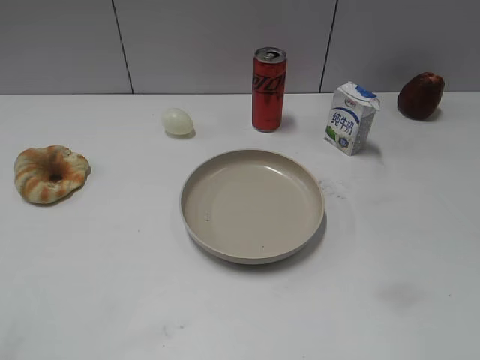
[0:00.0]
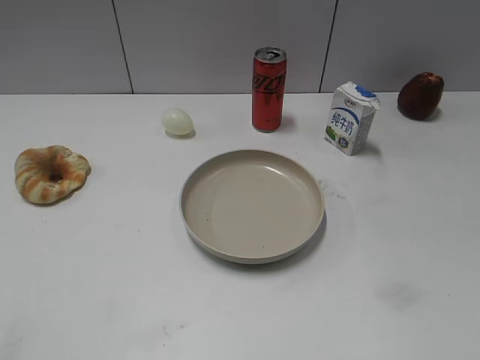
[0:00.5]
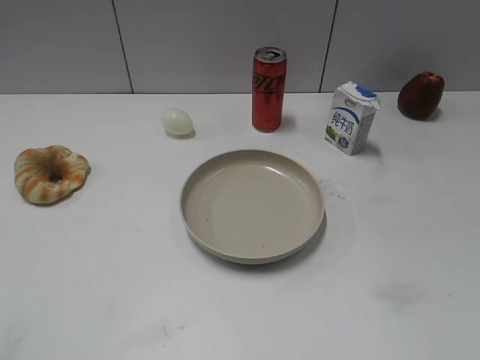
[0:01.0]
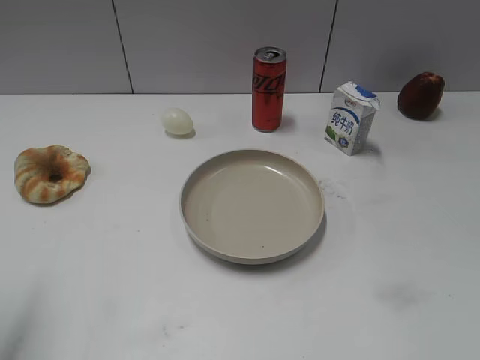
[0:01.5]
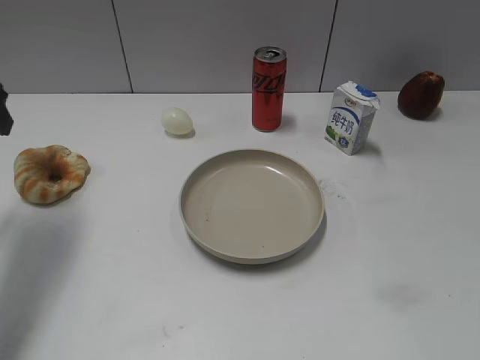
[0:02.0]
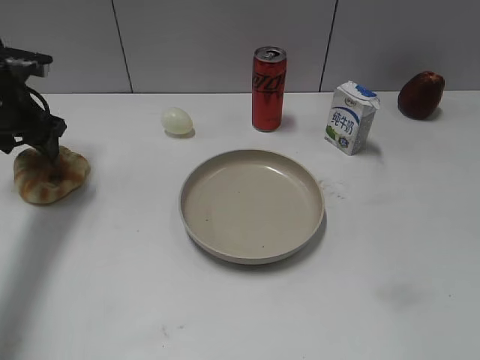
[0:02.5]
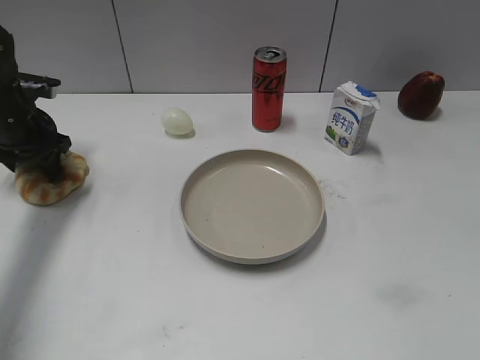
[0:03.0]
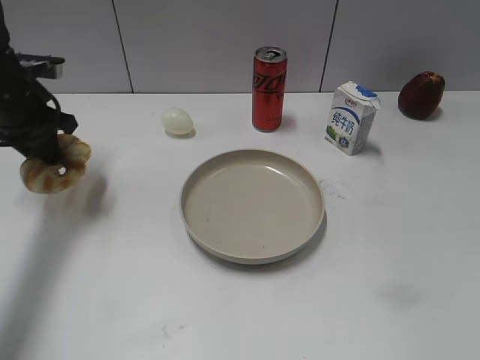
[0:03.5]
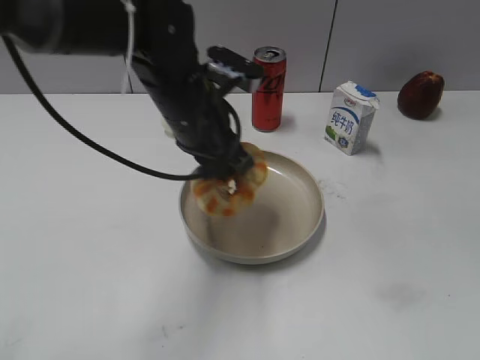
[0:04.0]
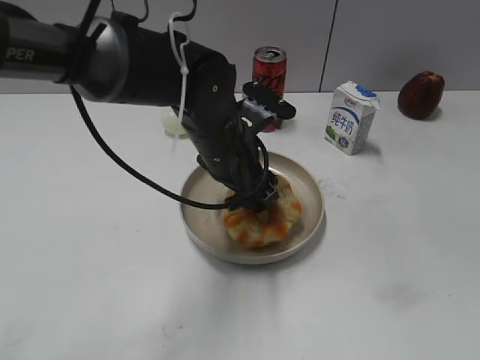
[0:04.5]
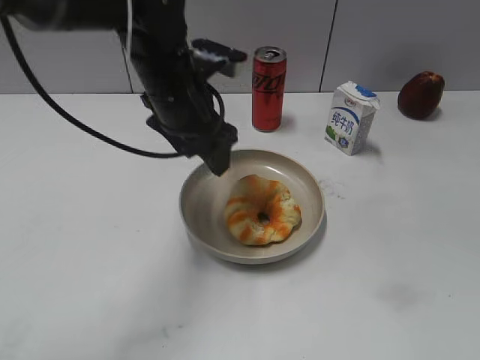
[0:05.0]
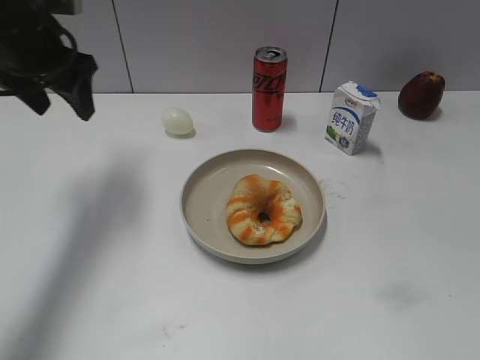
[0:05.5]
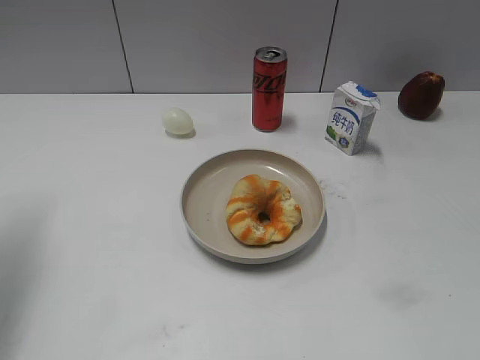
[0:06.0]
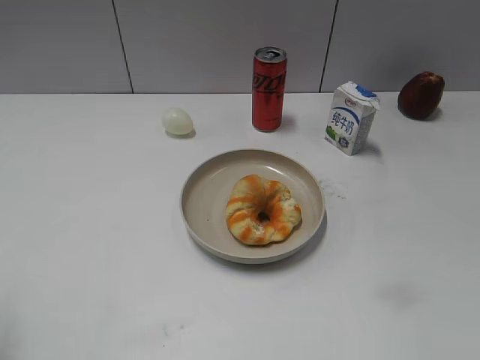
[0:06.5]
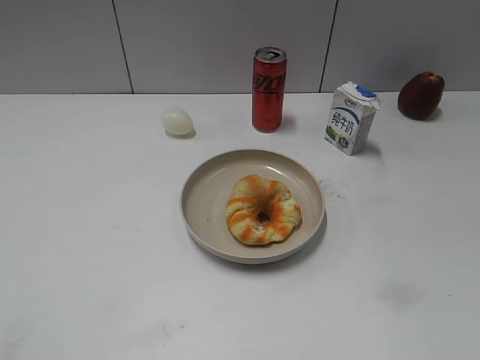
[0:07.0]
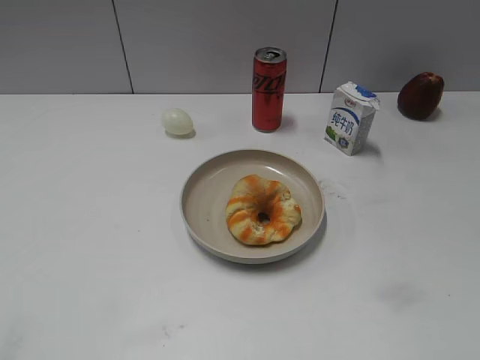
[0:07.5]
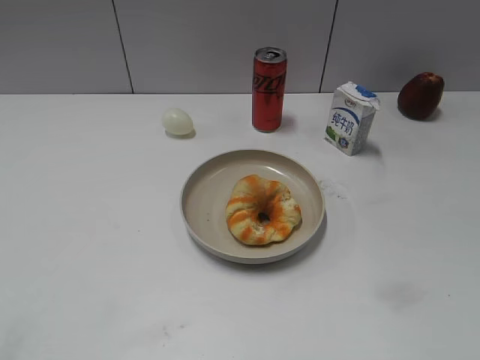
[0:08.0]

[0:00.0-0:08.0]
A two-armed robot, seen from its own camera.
Step, 0:01.0 to 0:03.0: Grasp the round bread with left gripper.
Step, 0:03.5 to 0:04.5: Place the round bread on the plate with left gripper.
0:02.0 to 0:04.0: The left gripper travels to the right by some 25 cm, and closes.
0:04.0 to 0:06.0: The left gripper heads to the left, covering roughly 30 cm, and opens up.
0:06.0 to 0:08.0: The left gripper is displaced backward by some 30 cm.
